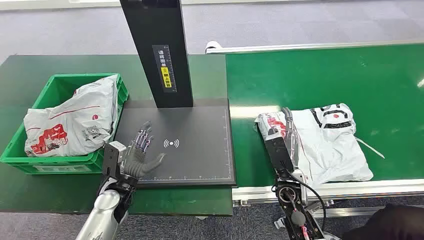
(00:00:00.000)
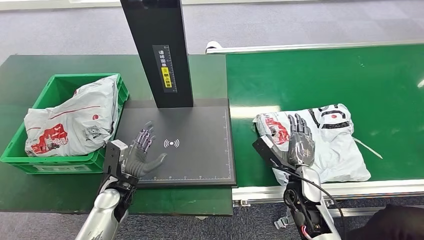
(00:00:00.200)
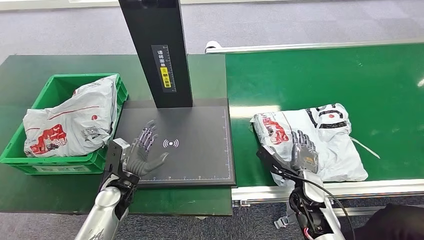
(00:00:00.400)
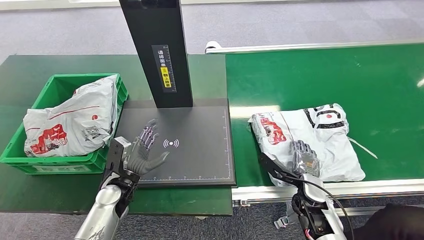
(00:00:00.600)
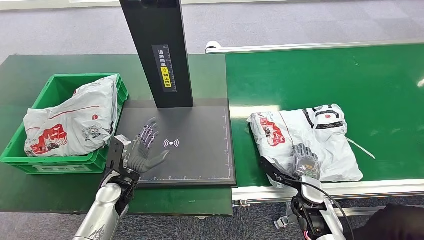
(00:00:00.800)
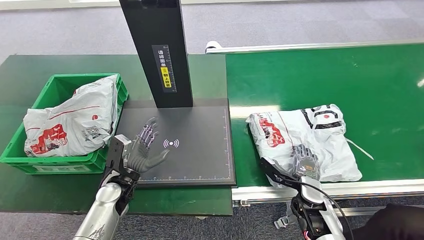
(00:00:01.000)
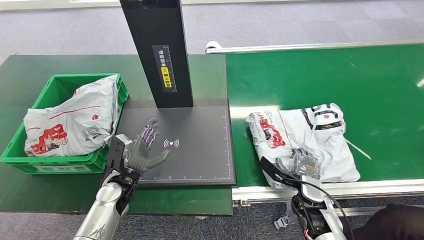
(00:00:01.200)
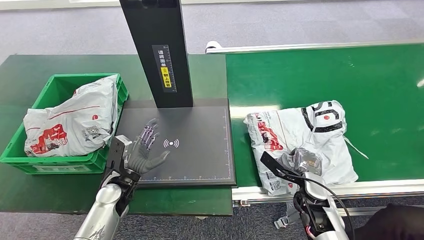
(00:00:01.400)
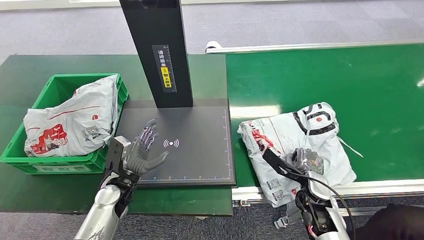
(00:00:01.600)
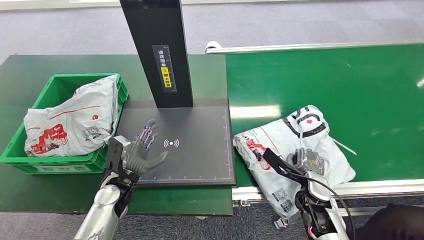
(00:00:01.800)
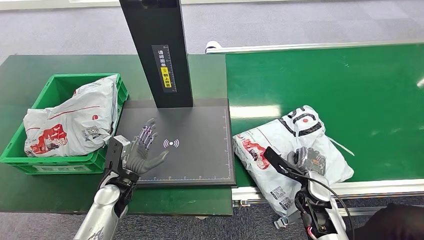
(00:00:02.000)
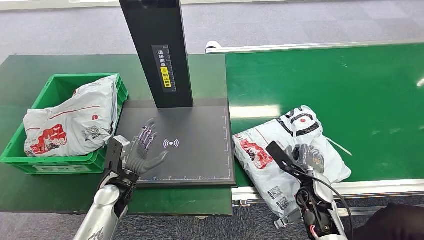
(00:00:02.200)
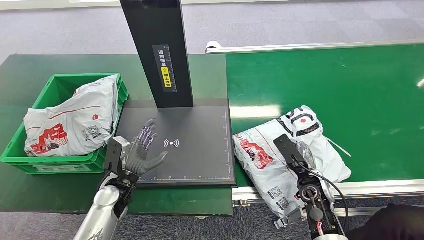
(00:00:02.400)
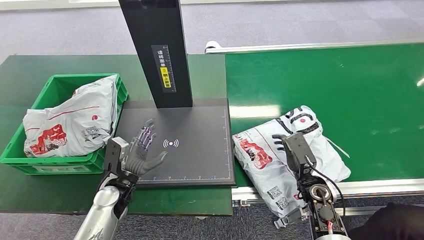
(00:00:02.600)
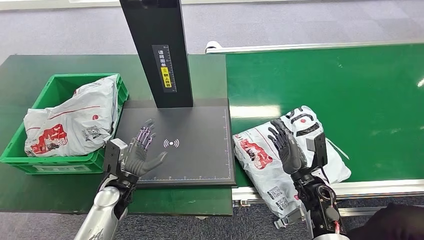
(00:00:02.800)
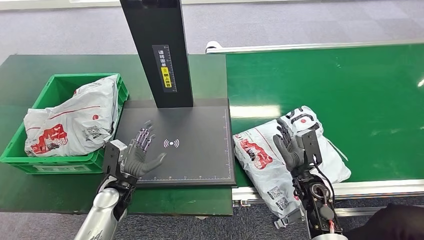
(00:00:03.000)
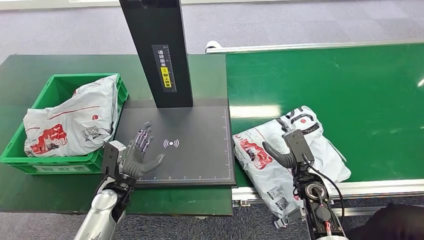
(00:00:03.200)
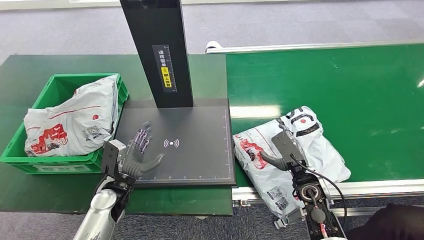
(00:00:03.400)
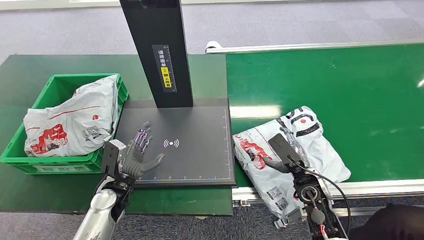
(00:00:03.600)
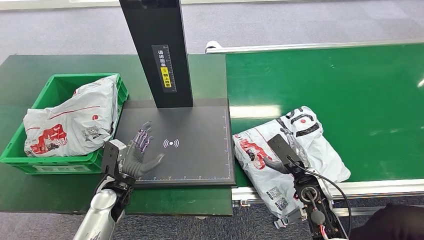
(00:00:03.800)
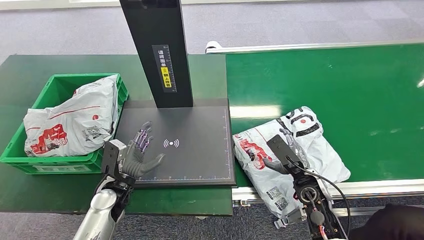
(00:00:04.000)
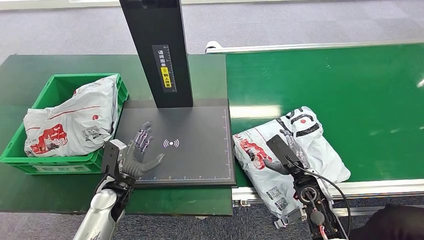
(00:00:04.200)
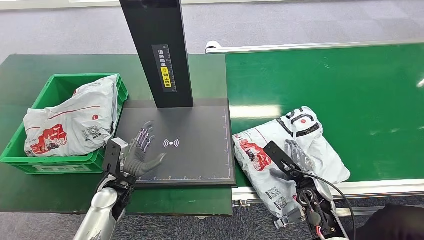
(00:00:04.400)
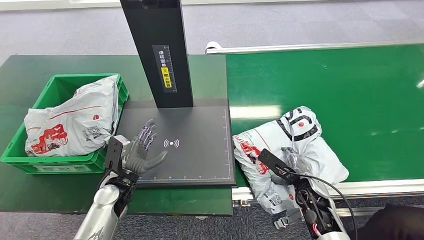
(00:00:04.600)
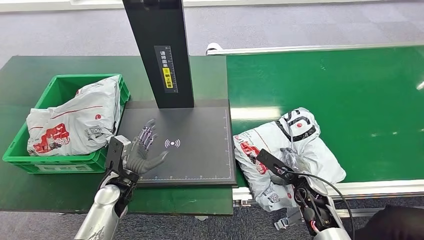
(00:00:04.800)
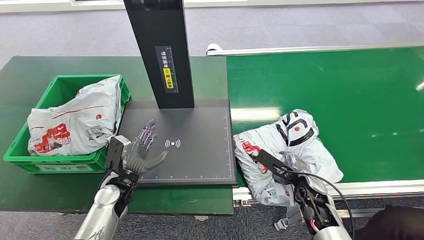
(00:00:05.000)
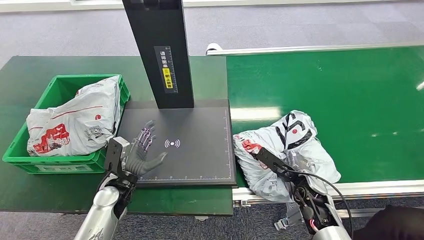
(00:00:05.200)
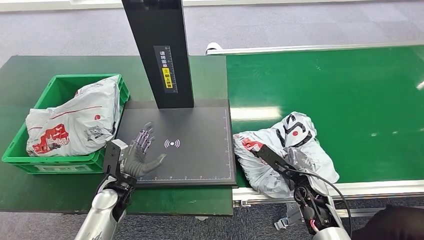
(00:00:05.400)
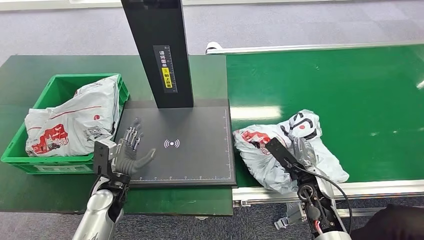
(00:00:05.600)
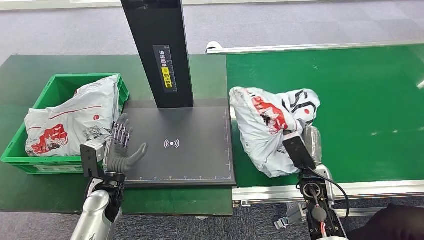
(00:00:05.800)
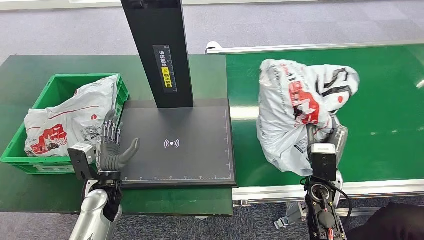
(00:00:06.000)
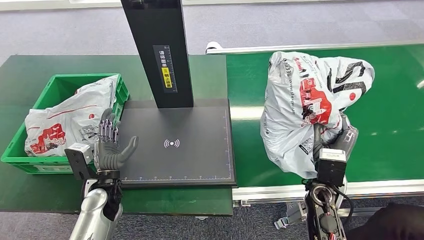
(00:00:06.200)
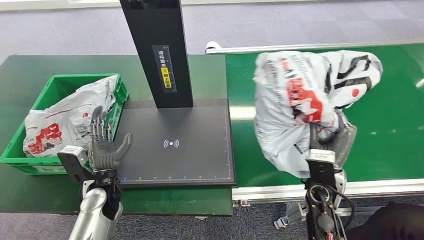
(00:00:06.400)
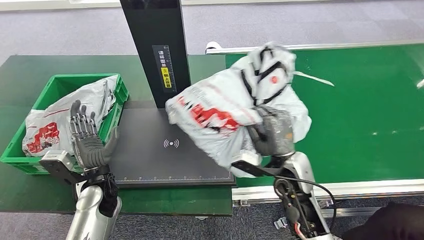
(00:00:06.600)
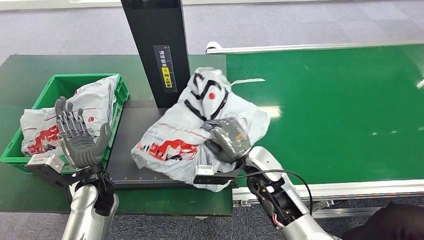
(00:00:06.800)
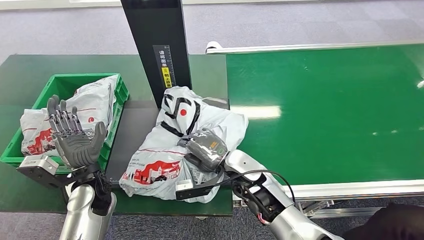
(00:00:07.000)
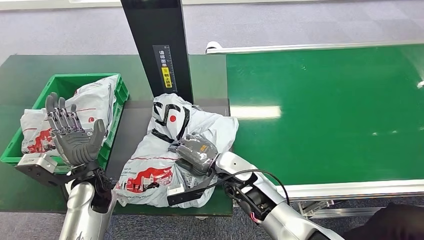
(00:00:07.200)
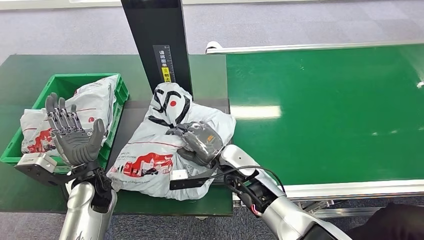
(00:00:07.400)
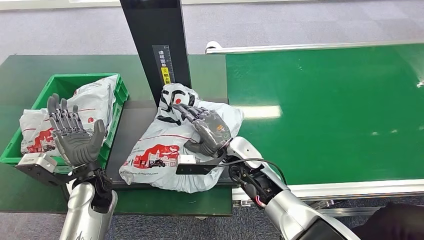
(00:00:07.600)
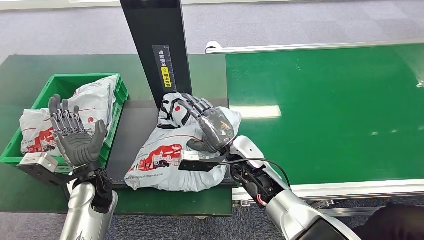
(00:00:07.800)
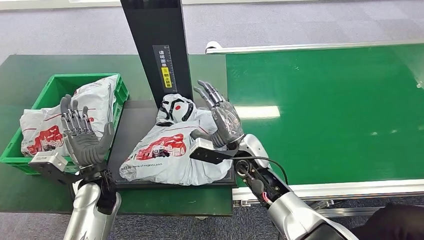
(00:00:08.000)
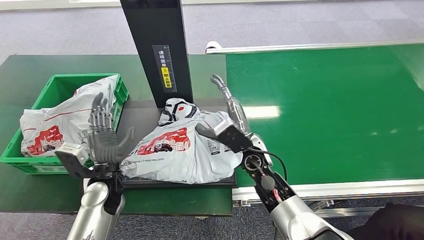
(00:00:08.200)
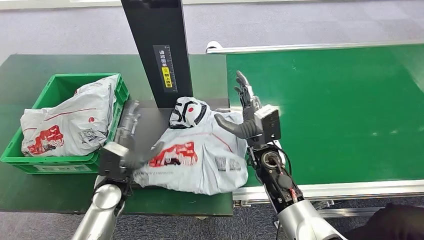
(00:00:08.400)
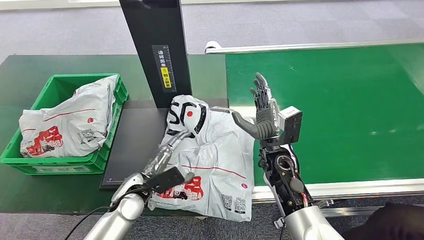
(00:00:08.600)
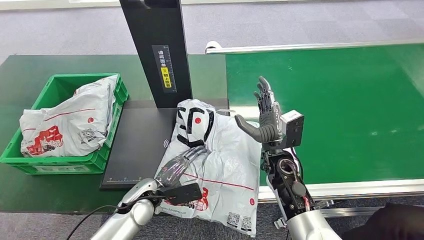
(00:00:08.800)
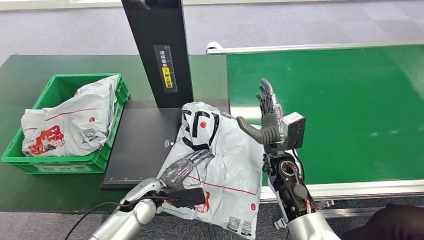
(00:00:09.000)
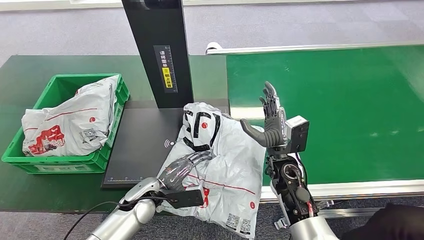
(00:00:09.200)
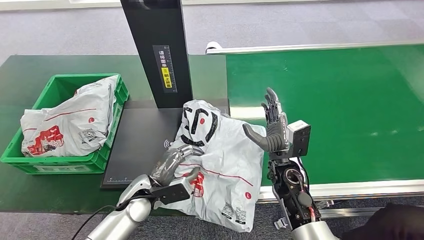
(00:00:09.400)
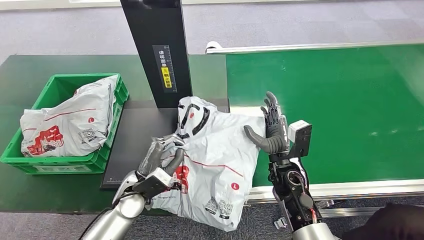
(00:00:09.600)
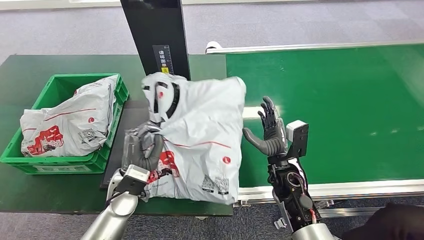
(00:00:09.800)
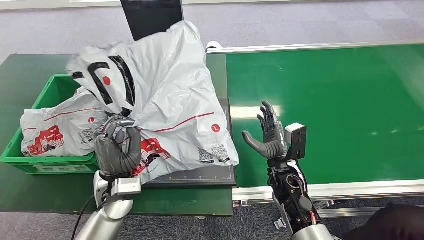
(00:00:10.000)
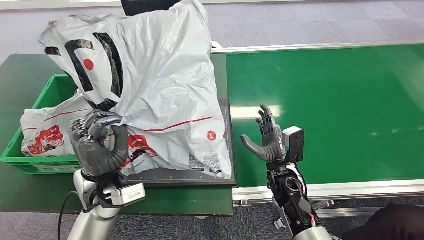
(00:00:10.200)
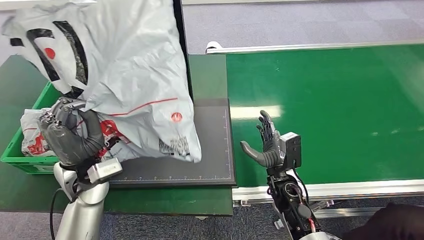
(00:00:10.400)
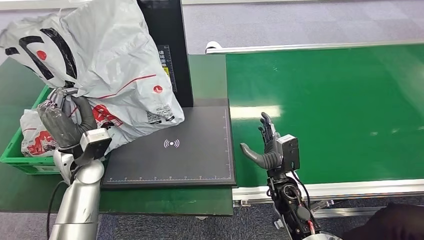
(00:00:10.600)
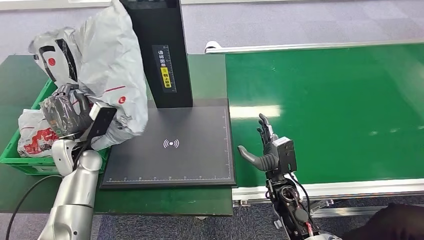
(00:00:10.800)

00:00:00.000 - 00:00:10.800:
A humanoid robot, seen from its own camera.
Step, 00:00:00.000 - 00:00:06.600: Pick up the package from the conveyor belt.
Step, 00:00:06.800 - 00:00:09.200: Place the package onto the inbound machine.
Step, 00:00:09.600 - 00:00:10.400: Pick up the package from the inbound machine.

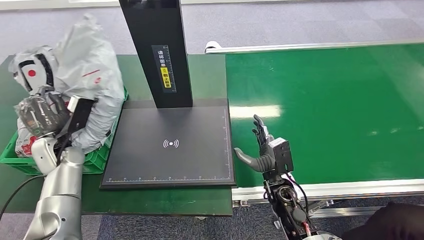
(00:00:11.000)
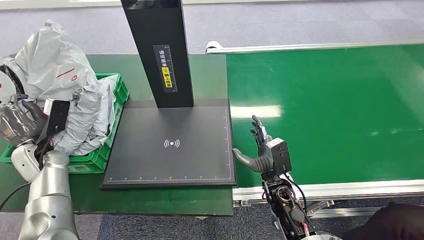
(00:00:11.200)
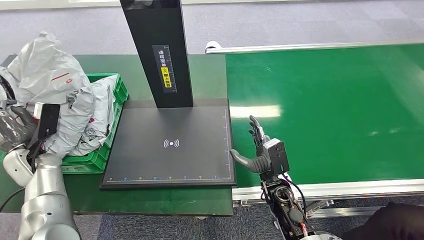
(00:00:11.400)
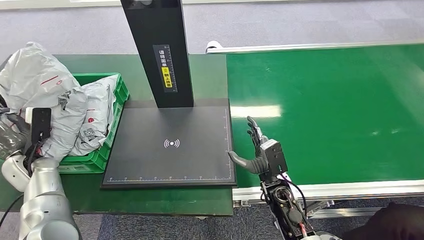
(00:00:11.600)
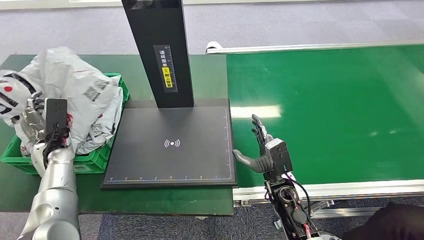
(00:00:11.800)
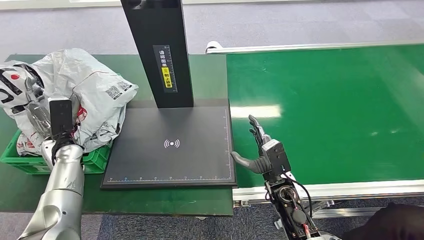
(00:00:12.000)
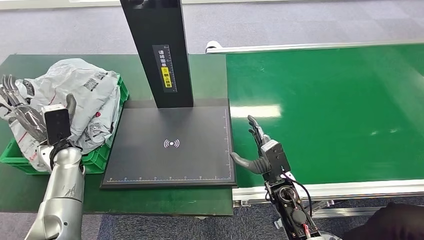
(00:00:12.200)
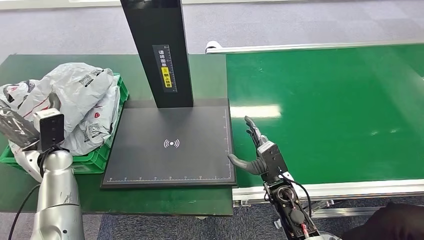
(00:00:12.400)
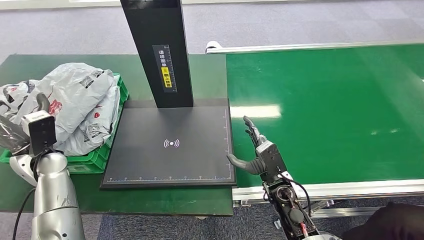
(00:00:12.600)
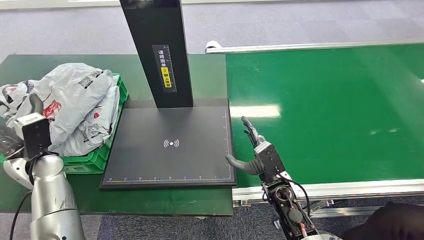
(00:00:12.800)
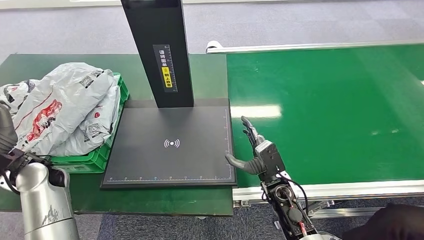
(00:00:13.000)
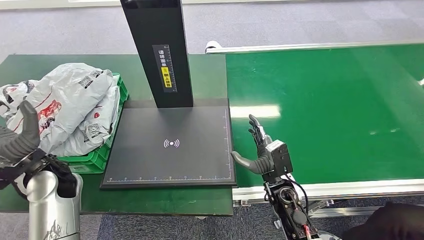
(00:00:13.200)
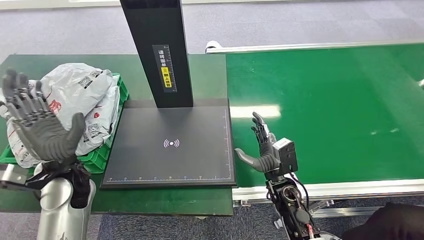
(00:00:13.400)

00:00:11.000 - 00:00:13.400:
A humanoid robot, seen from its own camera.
Step, 00:00:11.000 - 00:00:13.400: Place the package into the parcel locker.
00:00:11.000 - 00:00:12.200: The left hand travels to the left and back again, about 5 cm each way.
00:00:12.200 - 00:00:13.400: The left hand goes about 10 cm backward and to the right.
